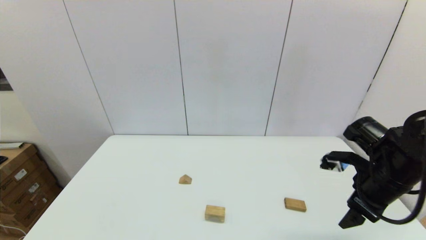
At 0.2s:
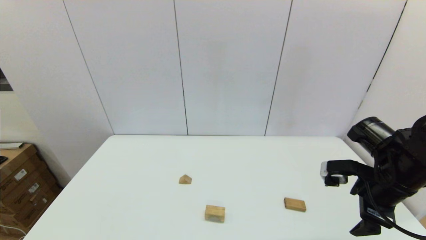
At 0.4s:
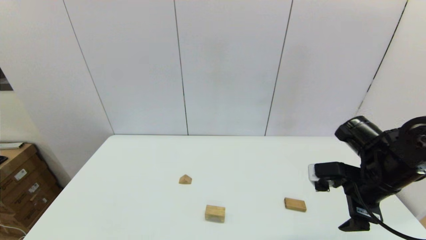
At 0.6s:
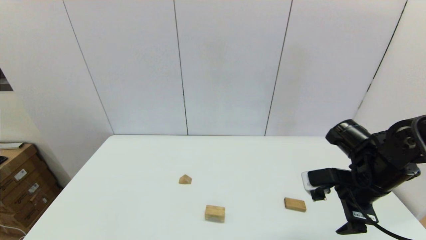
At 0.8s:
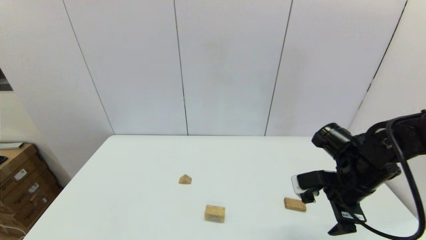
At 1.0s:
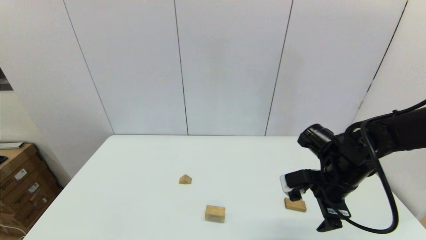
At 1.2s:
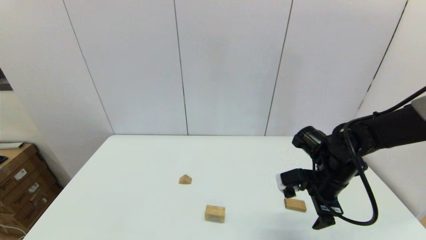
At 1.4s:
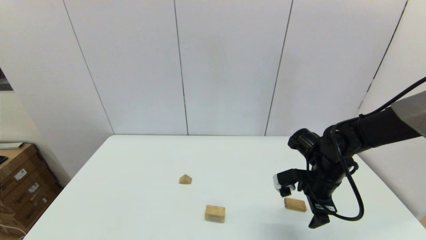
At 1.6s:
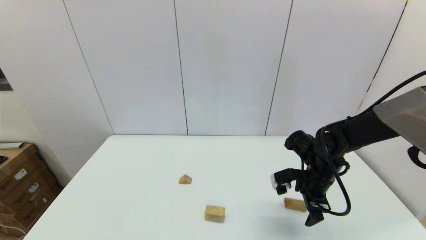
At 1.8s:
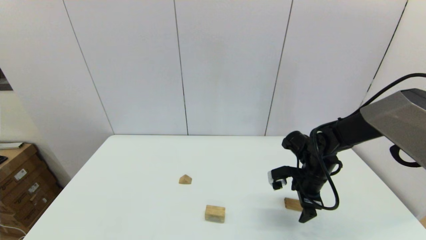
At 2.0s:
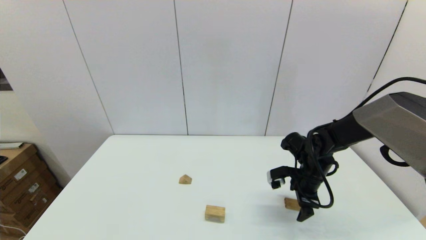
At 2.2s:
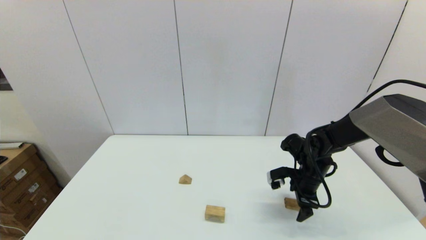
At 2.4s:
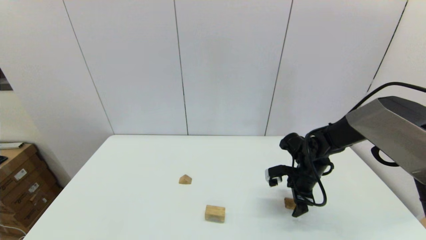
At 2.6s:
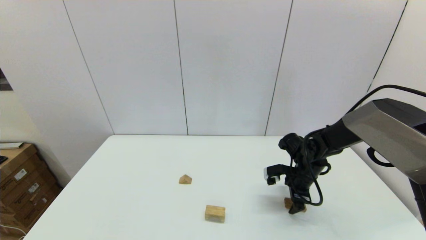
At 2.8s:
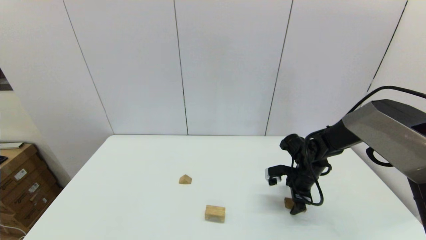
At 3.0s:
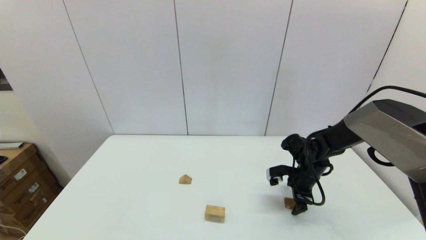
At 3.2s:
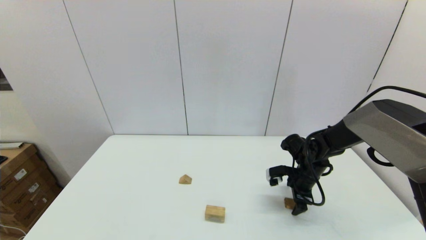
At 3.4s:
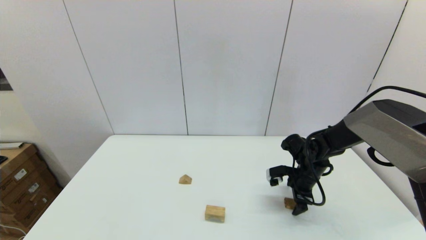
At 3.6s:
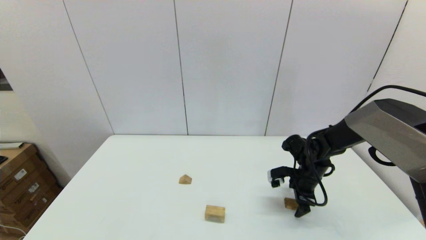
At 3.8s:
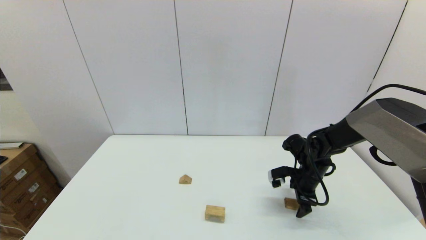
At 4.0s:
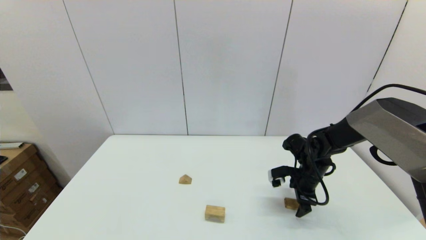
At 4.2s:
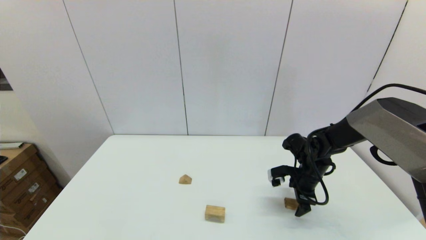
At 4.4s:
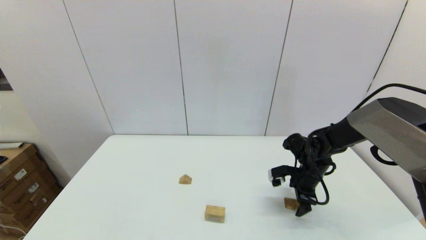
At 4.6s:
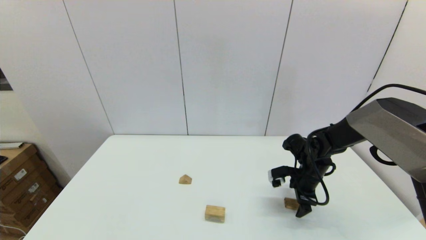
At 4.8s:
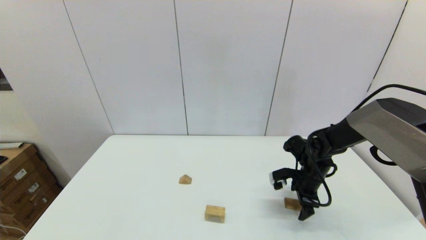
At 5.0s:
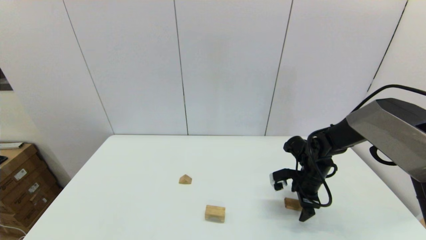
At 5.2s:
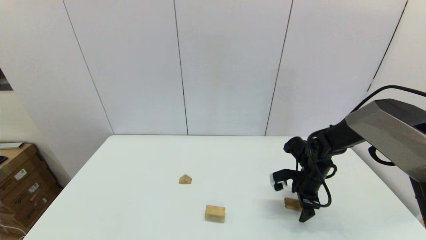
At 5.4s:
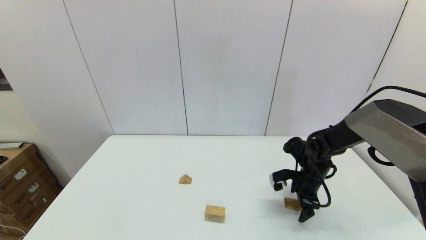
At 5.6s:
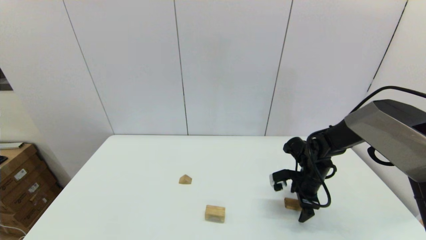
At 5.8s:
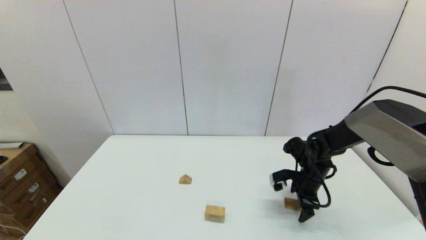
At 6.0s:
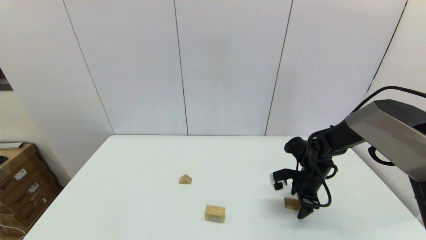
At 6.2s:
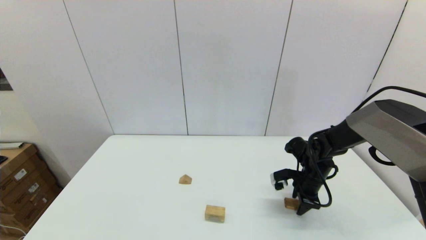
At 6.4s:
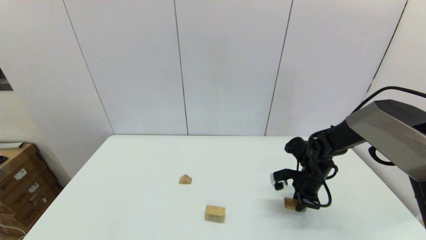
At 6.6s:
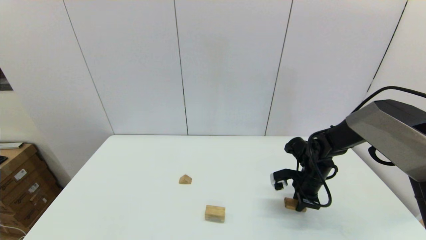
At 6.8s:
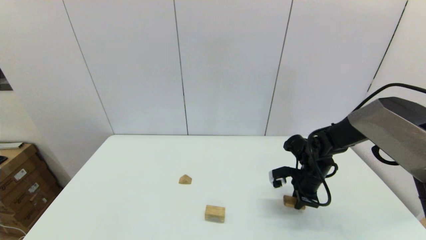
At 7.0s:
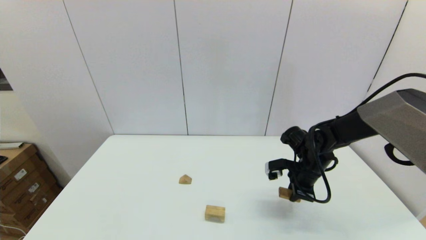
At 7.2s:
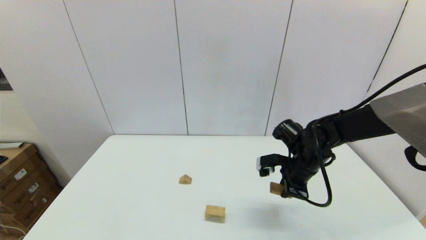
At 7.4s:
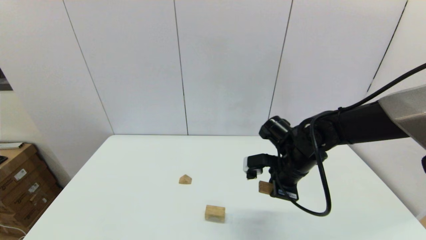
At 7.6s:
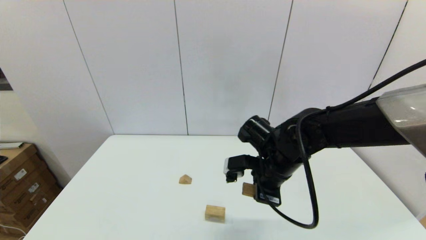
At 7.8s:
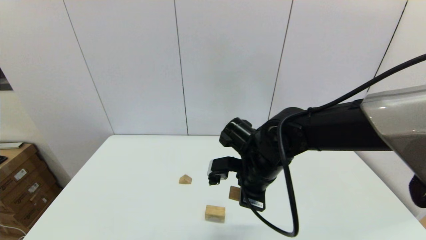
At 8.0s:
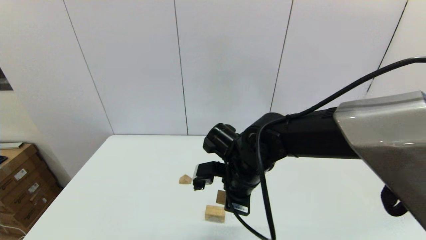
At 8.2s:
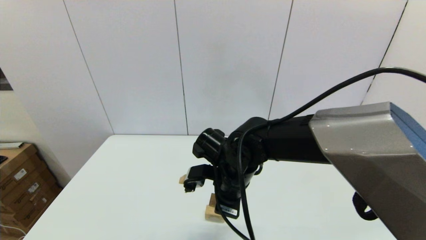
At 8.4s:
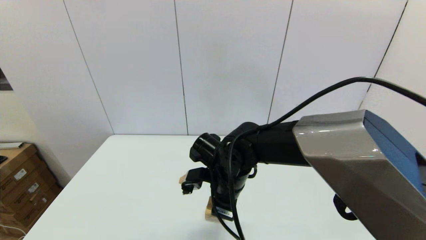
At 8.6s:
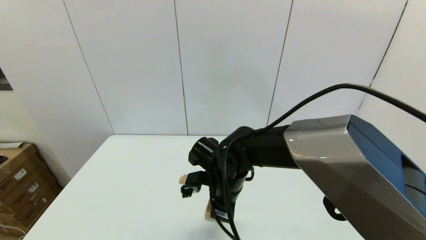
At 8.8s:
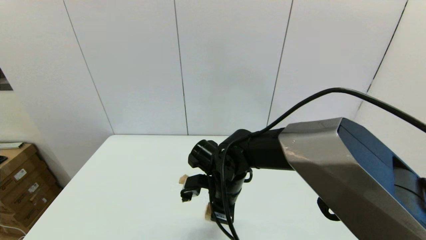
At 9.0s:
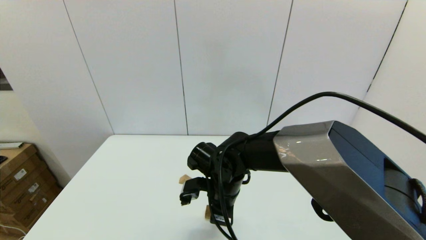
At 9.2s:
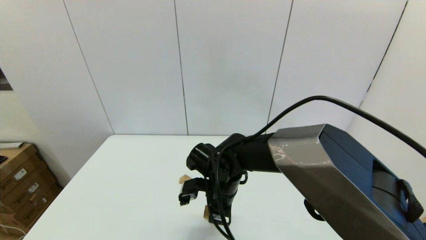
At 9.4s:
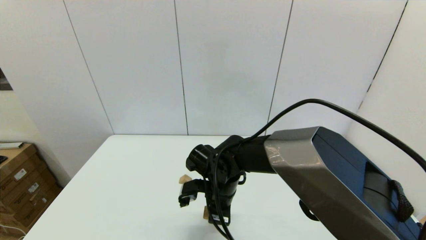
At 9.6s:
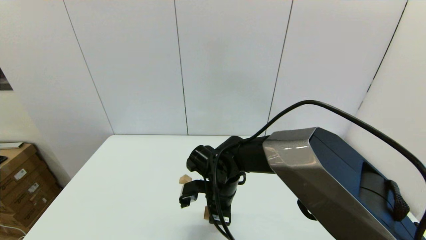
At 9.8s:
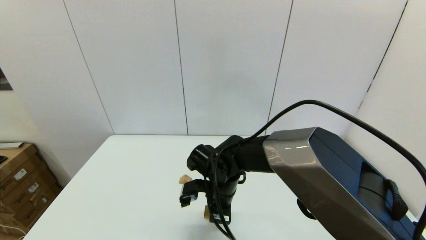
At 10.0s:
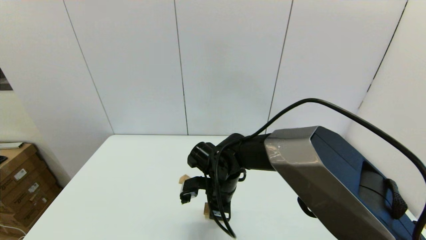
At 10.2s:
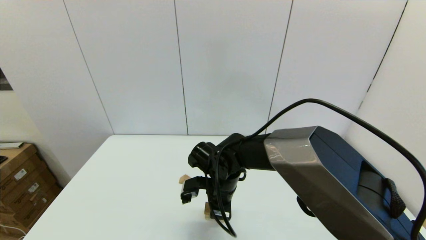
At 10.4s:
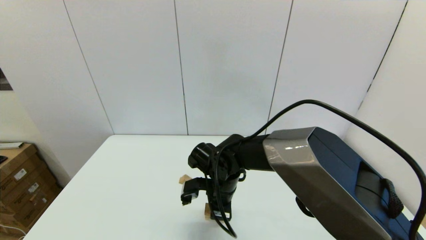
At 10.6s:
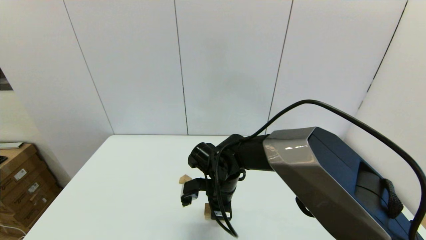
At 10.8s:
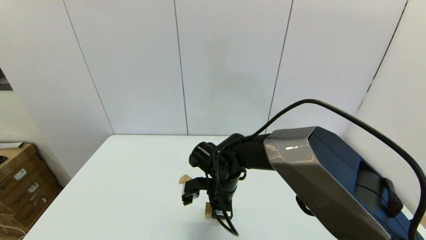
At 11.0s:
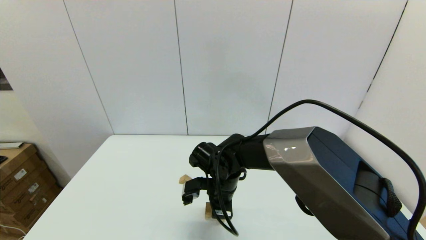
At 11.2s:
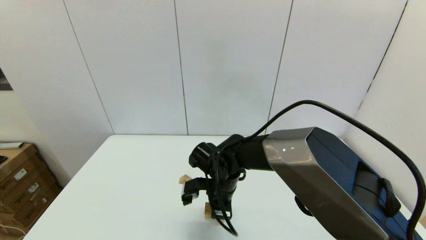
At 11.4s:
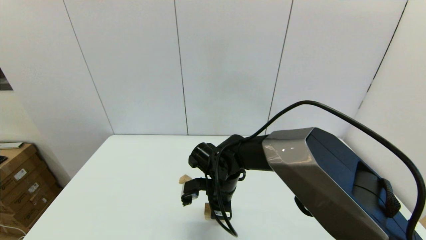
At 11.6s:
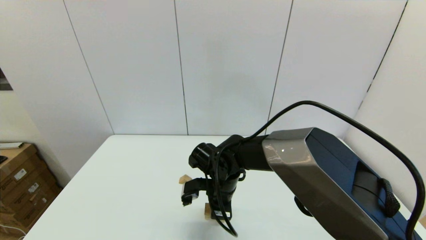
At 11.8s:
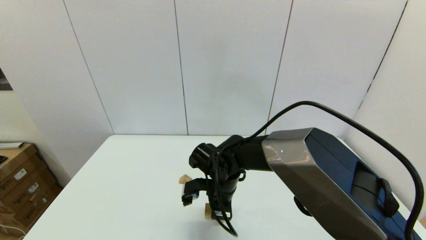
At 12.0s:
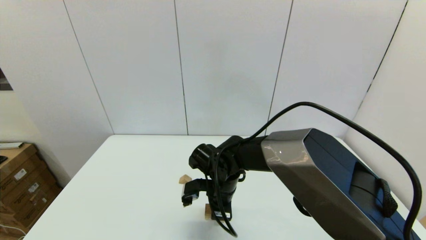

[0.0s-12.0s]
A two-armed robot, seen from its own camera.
Task of the whole recording: place the arched building blocks in the center of the table, set up the rectangular building blocks, and then set up the triangular building blocks.
Step, 0.0s to 6.4s: Grasp the box-shaped block with the right gripper.
0.0s to 1.6s: The right gripper is displaced downward, forward and to the left by some 15 cm.
1.6s to 3.0s: The right gripper heads downward, covering approximately 5 cm.
3.0s to 4.4s: The two grippers keep their place.
4.4s to 6.0s: Both grippers stay put.
6.0s to 7.6s: The right gripper travels to the left, upward and backward by some 20 cm, and closes its fingers.
7.6s to 9.0s: The right gripper travels to the left and downward by some 10 cm.
9.0s to 10.4s: The grippers make only small movements.
10.4s to 12.0s: Neither gripper changes place.

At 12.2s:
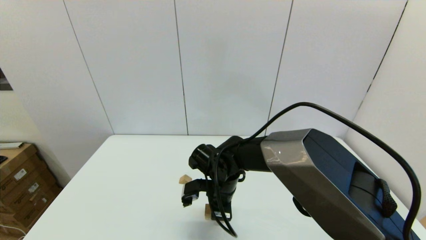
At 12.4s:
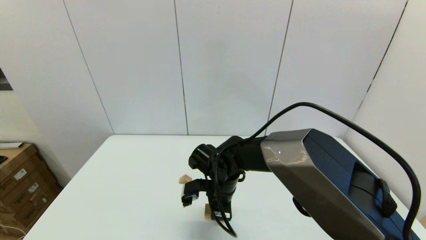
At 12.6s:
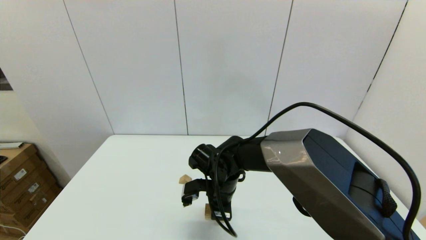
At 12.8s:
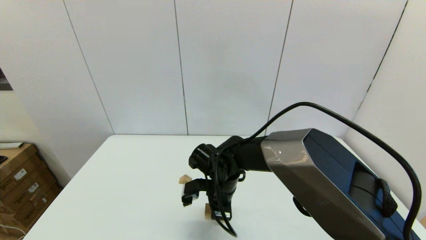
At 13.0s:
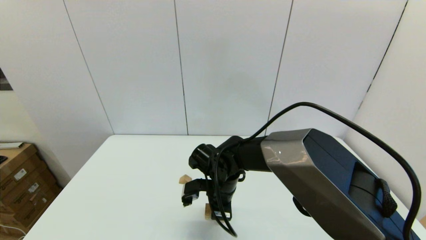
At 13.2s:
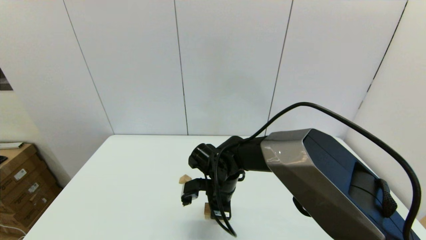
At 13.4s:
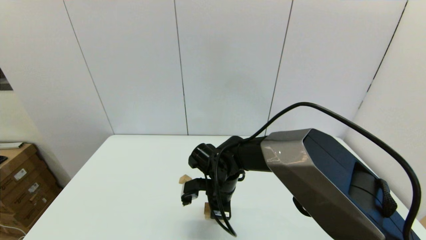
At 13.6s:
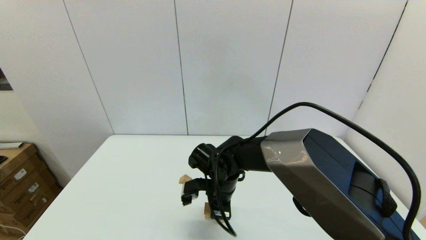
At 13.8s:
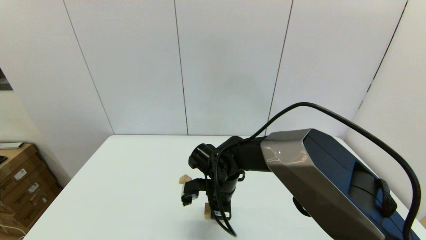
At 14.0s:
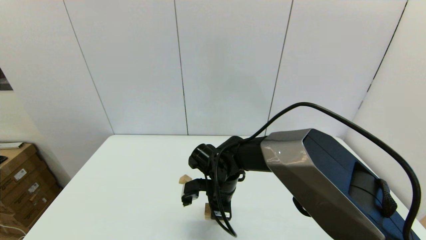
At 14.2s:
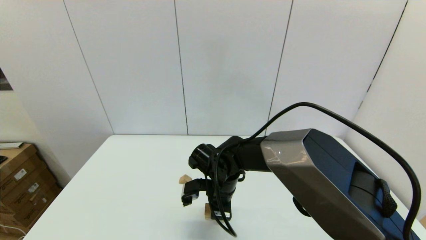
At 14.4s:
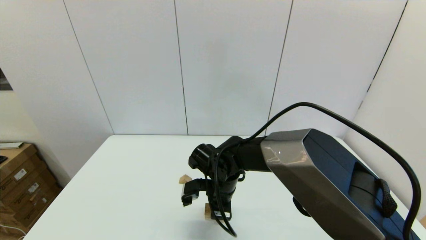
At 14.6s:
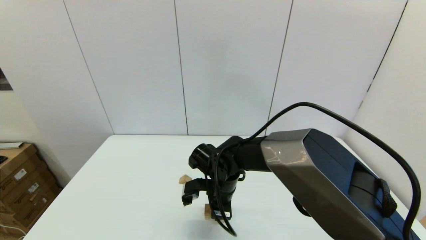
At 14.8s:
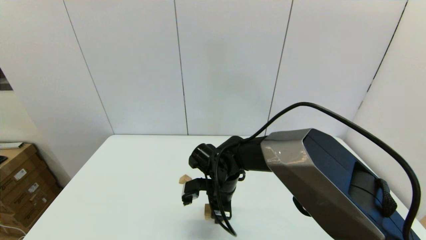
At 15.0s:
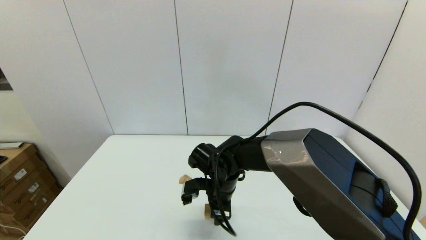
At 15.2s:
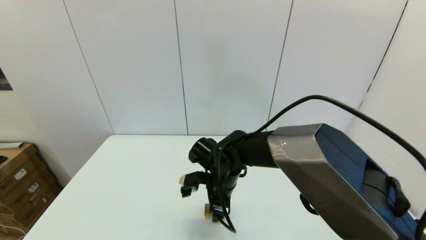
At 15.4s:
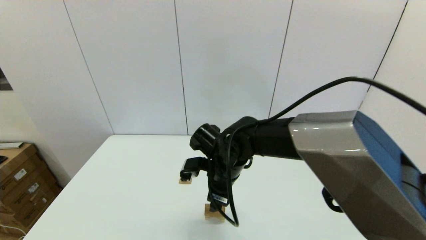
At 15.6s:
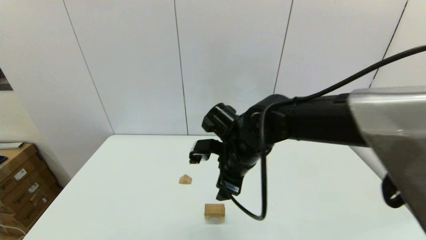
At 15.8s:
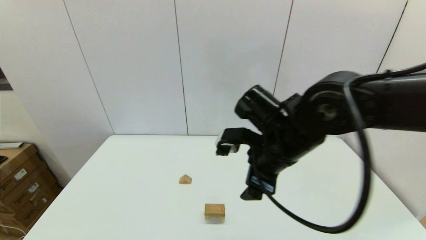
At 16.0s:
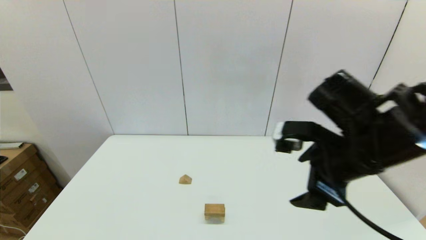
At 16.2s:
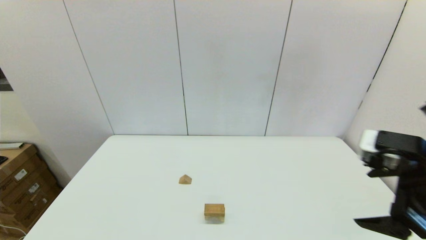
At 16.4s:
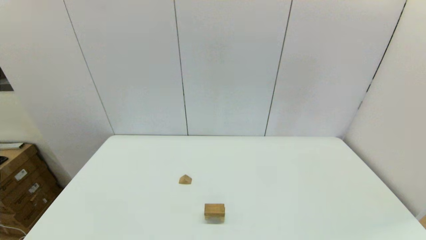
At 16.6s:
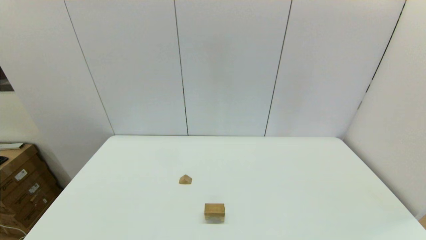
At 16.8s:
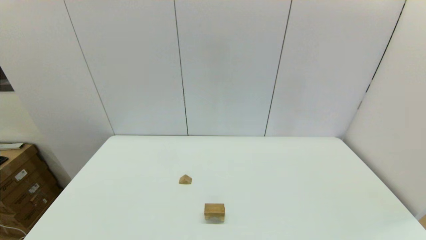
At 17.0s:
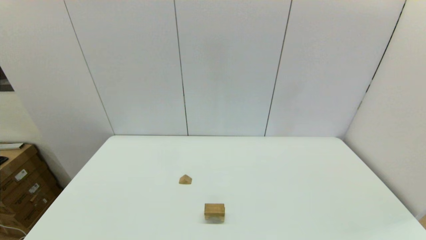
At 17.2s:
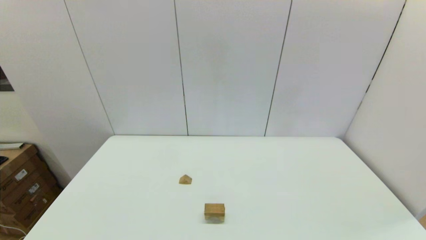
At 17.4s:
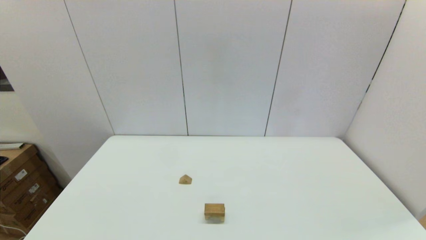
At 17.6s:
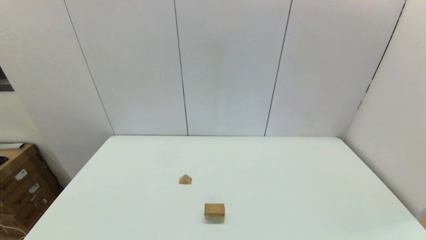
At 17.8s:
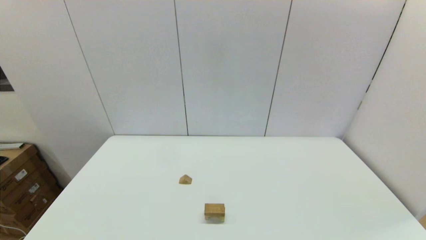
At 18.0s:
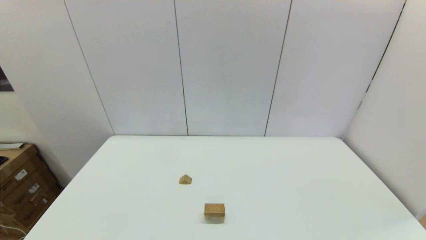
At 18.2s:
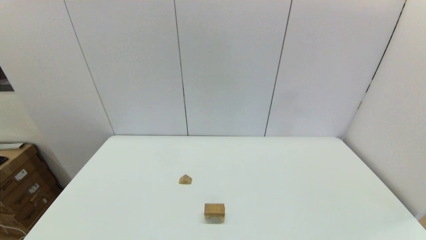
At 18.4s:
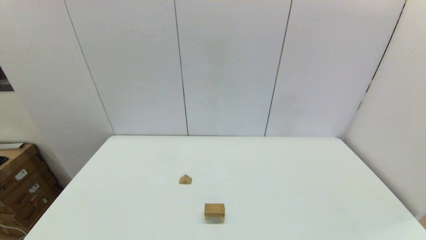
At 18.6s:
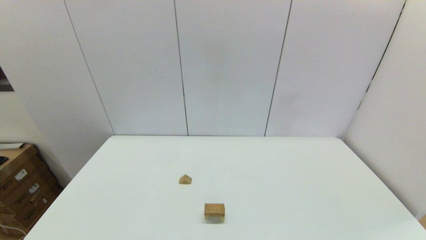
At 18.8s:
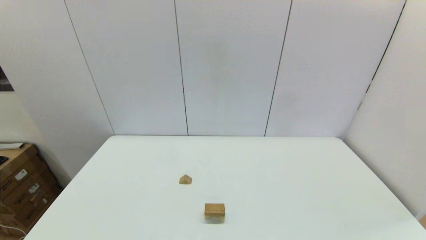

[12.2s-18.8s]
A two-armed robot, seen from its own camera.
Task of the whole recording: place the arched building blocks in the center of the table, set up the rectangular building blocks, and then set up the triangular building blocks.
12.2s to 13.8s: The two grippers keep their place.
13.8s to 15.4s: The right gripper travels upward by about 5 cm, and opens up.
15.4s to 17.2s: The right gripper heads backward and to the right, covering some 50 cm.
